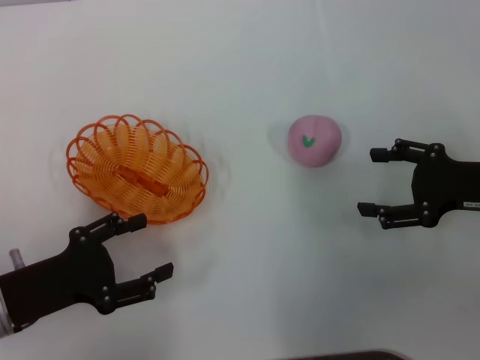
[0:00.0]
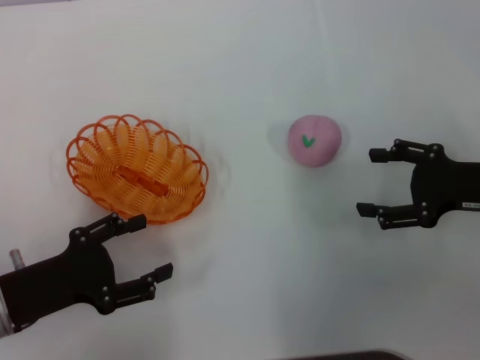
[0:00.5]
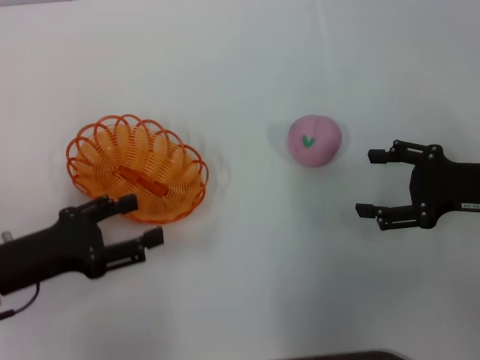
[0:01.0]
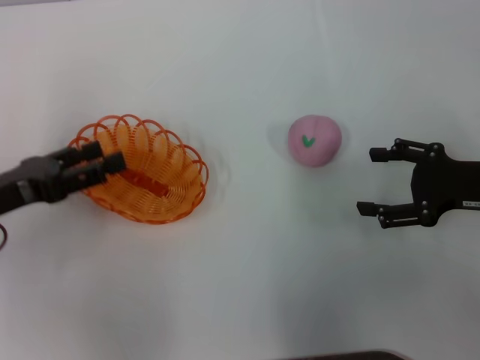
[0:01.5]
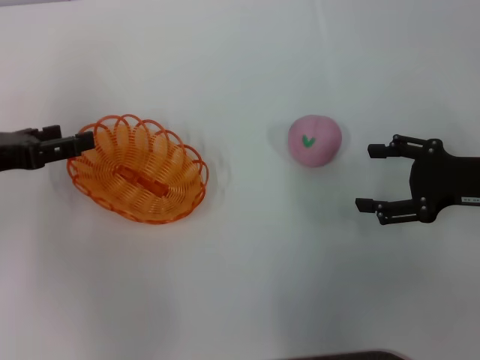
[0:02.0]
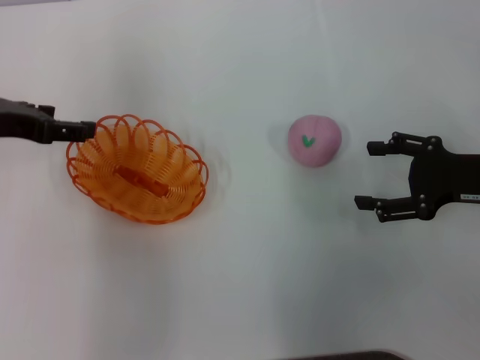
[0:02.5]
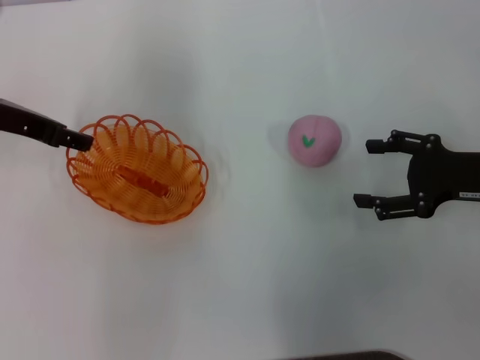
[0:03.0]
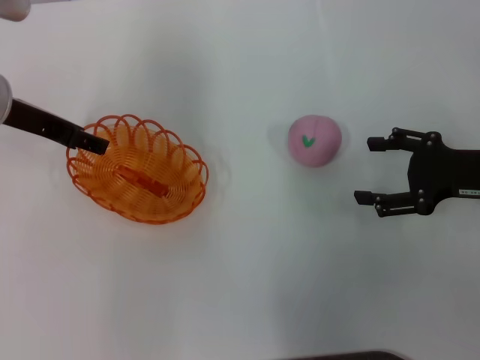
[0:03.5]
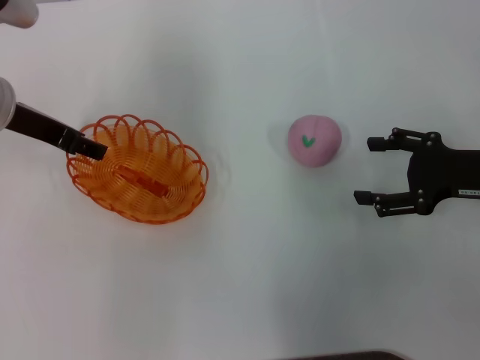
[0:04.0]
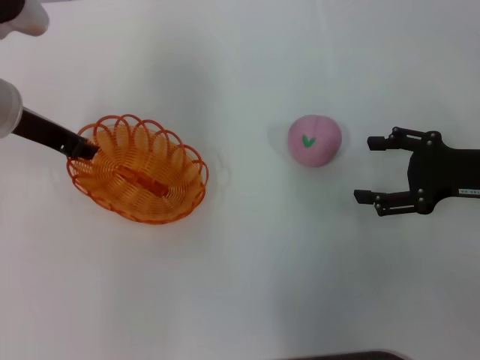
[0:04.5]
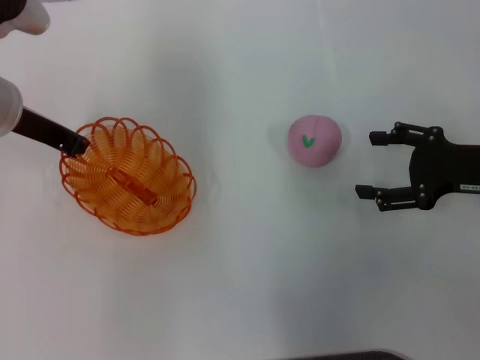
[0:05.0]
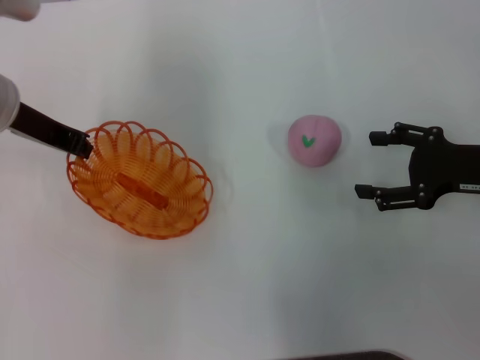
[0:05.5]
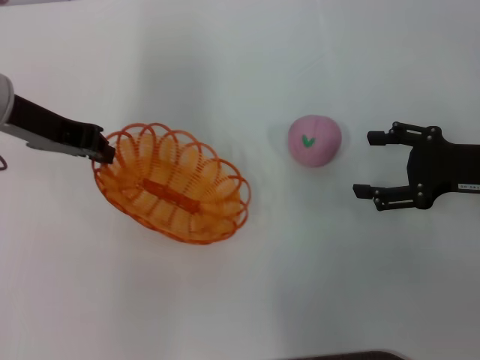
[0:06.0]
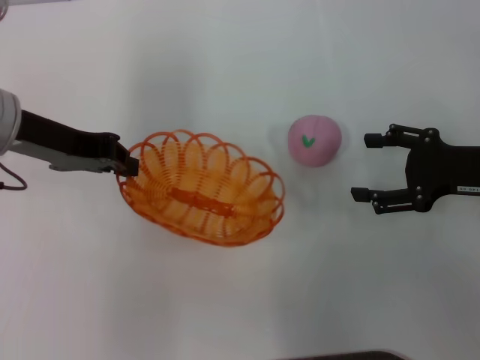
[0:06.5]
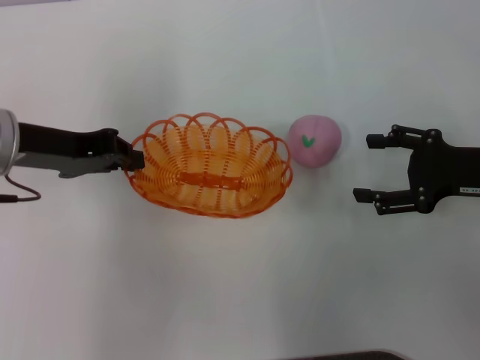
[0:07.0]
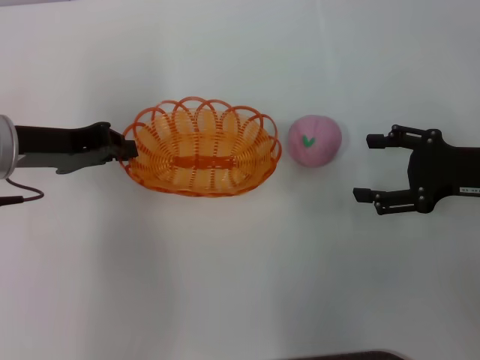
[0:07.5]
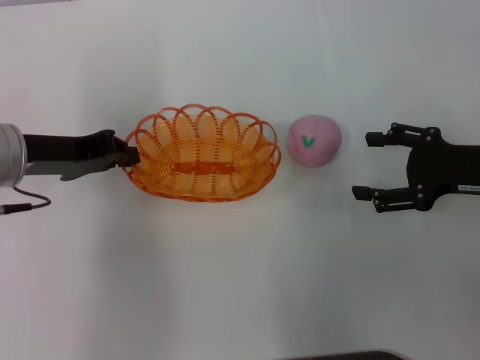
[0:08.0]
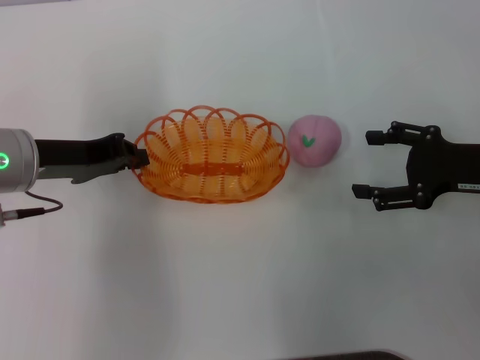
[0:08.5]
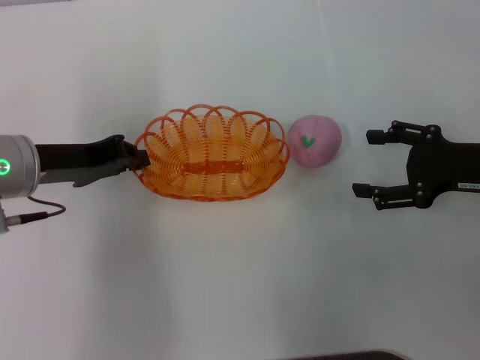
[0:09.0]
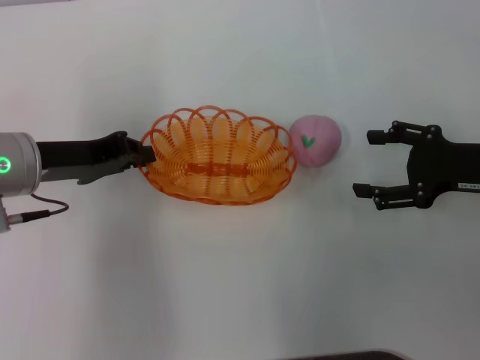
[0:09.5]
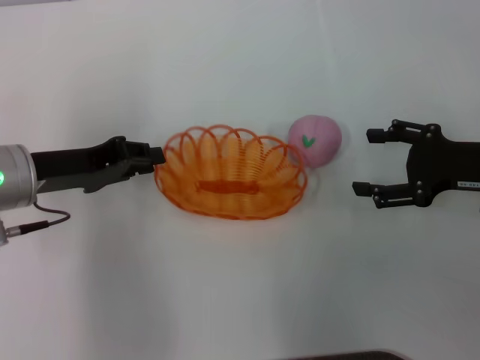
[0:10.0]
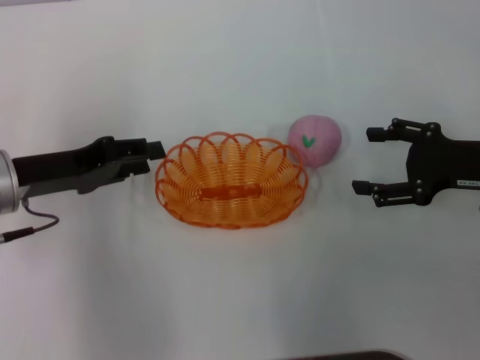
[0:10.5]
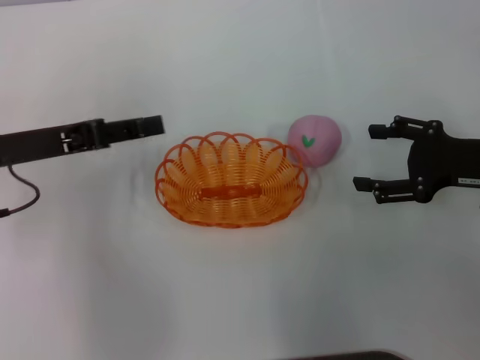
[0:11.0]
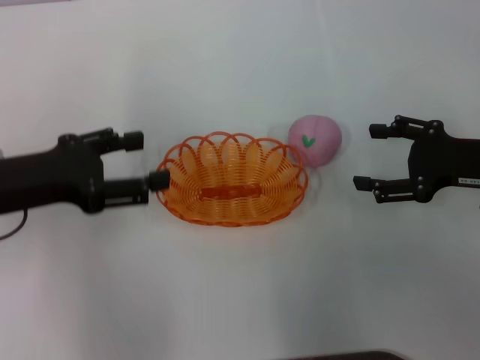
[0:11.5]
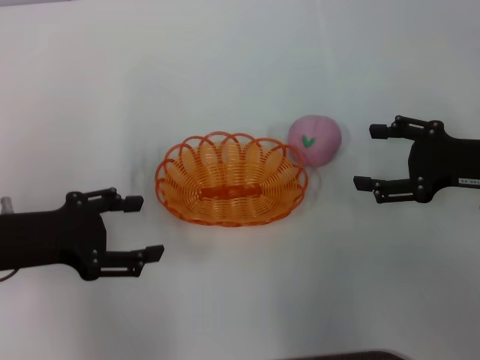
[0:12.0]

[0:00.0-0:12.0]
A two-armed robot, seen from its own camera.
Step, 0:00.0 to 0:06.0: Pick up the basket with the left gripper.
Step, 0:06.5 to 0:10.5: Place the basket in the center of view with the left gripper.
0:00.0 to 0:02.0: The left gripper travels forward and upward by some 10 cm.
0:02.0 to 0:04.0: The left gripper travels to the right and forward by approximately 10 cm.
0:04.0 to 0:06.0: The left gripper closes.
0:06.0 to 0:08.0: The left gripper travels downward by approximately 5 cm.
0:08.0 to 0:10.0: The grippers move only a little.
0:10.0 to 0:12.0: The left gripper ends up approximately 5 cm from where it was, and opens its fingers.

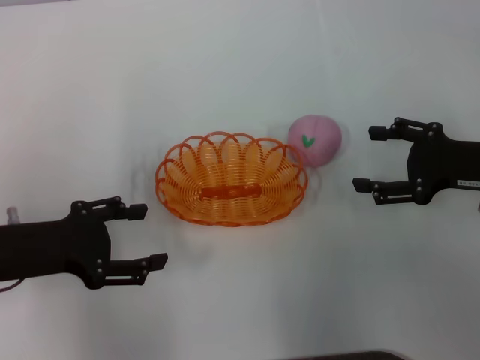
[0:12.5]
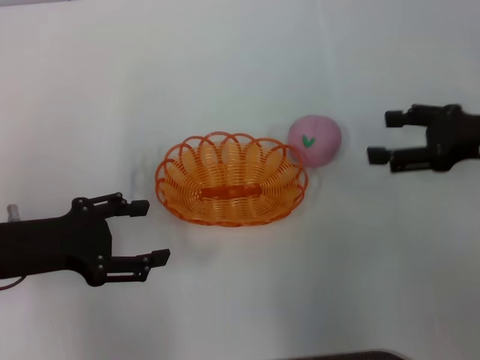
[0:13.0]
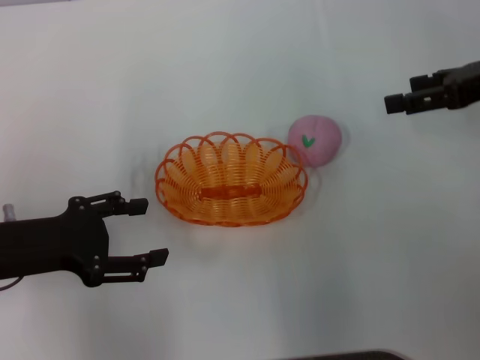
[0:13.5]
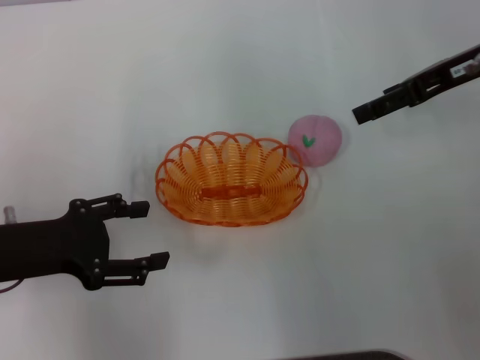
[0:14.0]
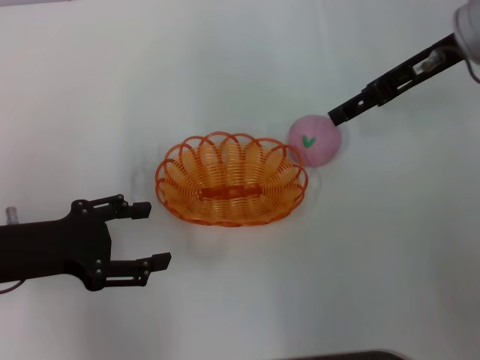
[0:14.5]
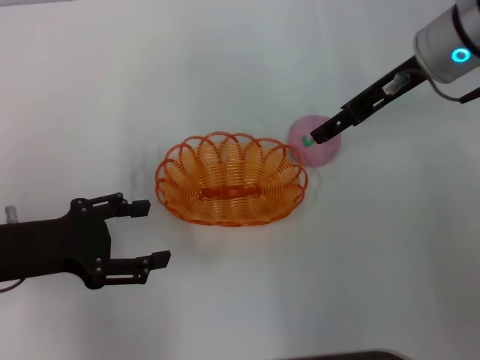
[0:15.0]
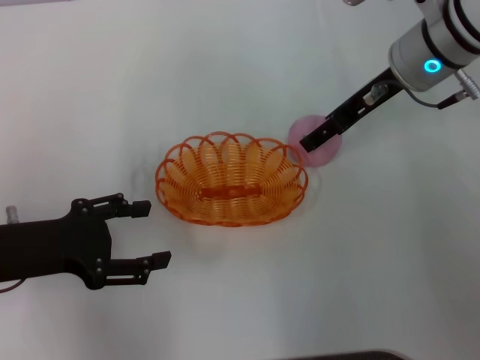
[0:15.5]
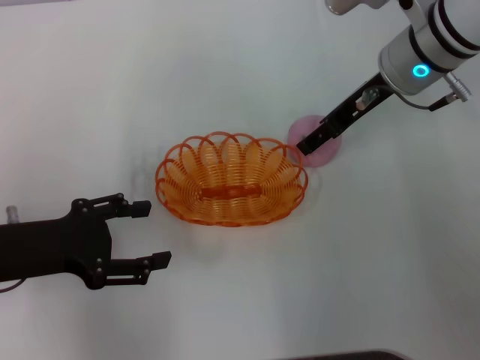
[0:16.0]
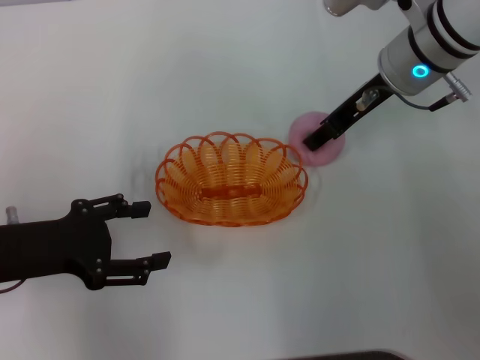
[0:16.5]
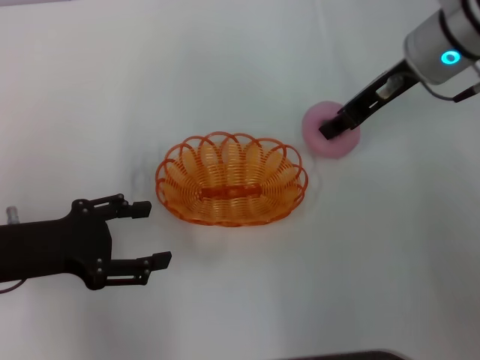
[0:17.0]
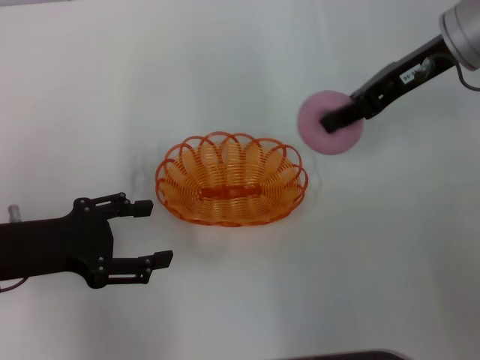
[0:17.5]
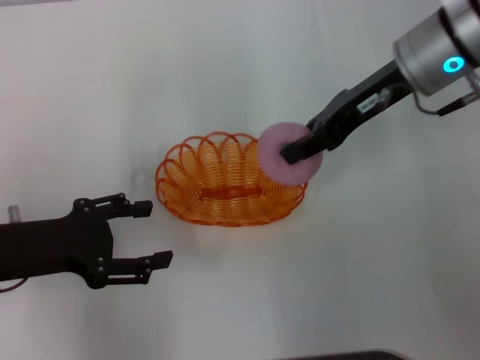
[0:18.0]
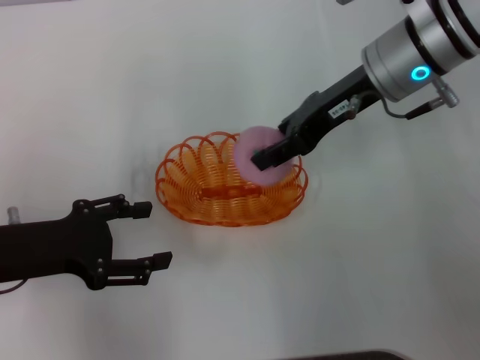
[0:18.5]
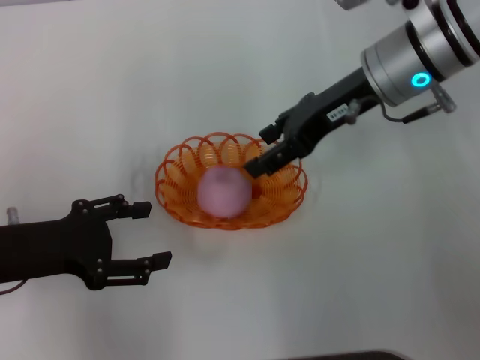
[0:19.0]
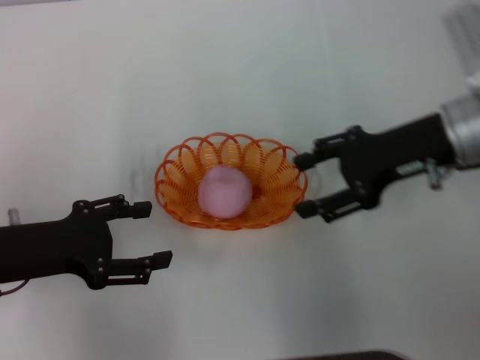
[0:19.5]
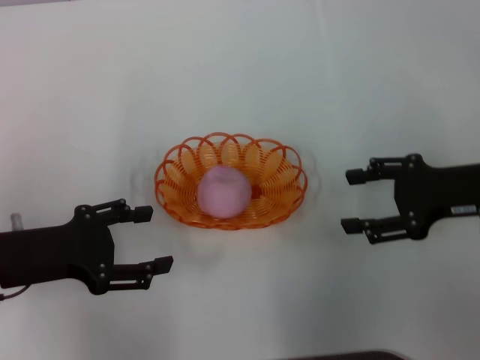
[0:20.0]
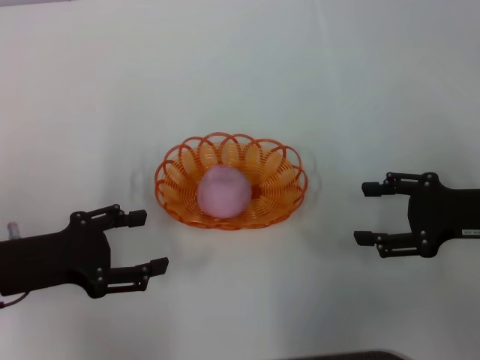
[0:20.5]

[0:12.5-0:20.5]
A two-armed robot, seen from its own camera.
Step, 0:12.5 to 0:17.0: Pick up the peach with the right gripper.
Step, 0:18.0 to 0:19.0: Place the peach into the basket with the right gripper.
0:12.5 to 0:14.5: The right gripper shifts approximately 15 cm upward, forward and to the left.
0:14.5 to 0:16.5: The right gripper travels to the left by about 5 cm.
0:16.5 to 0:18.5: The right gripper closes up.
0:18.5 to 0:20.5: The right gripper heads to the right, backward and downward, covering roughly 20 cm, and opens its fingers.
